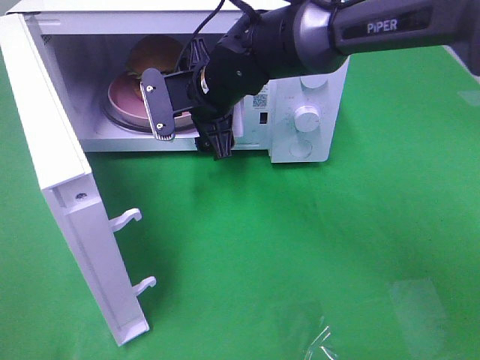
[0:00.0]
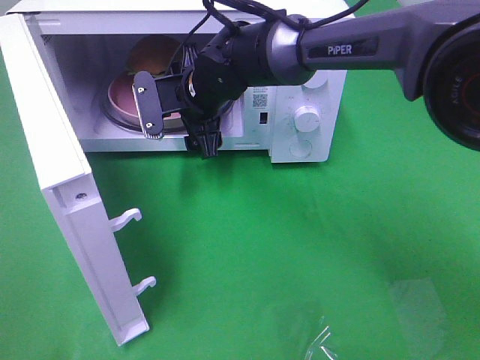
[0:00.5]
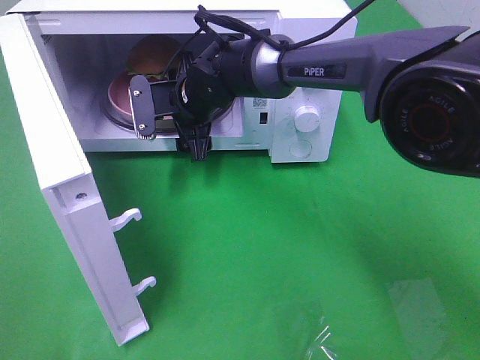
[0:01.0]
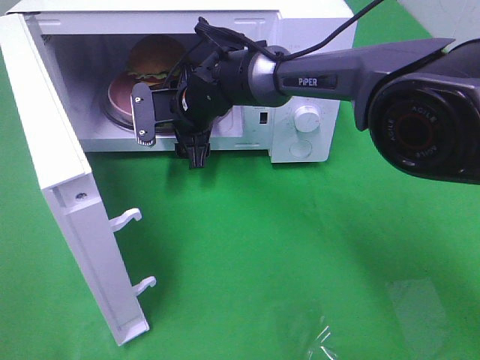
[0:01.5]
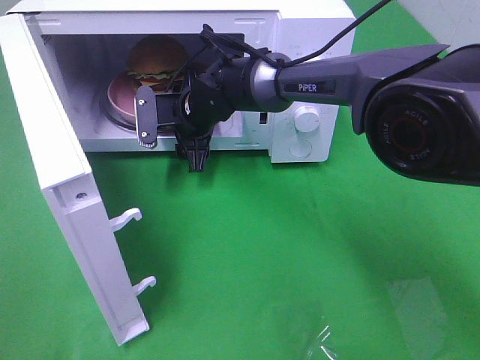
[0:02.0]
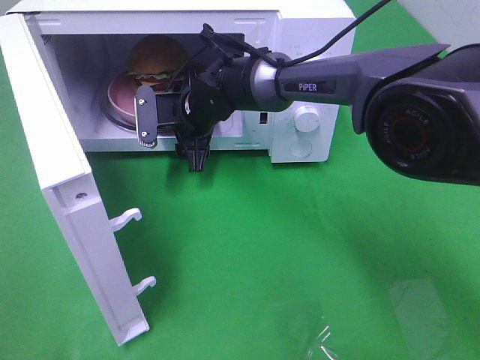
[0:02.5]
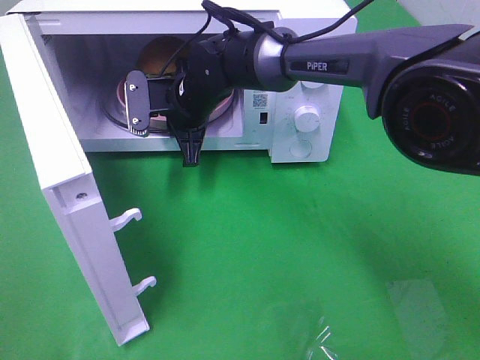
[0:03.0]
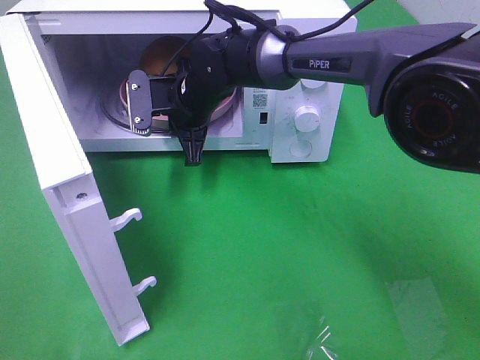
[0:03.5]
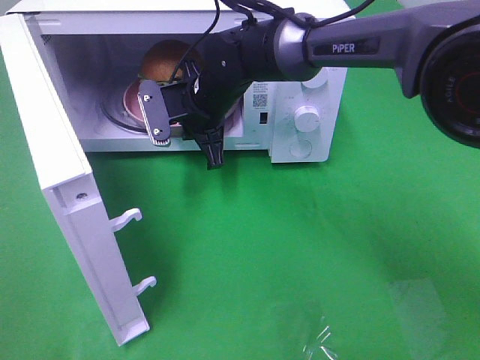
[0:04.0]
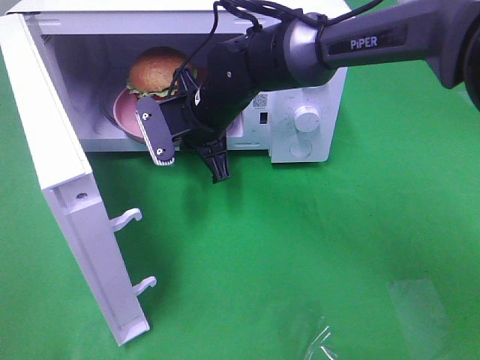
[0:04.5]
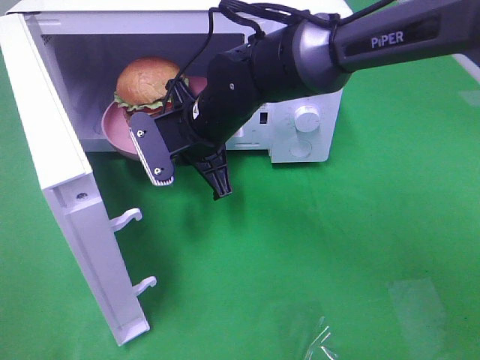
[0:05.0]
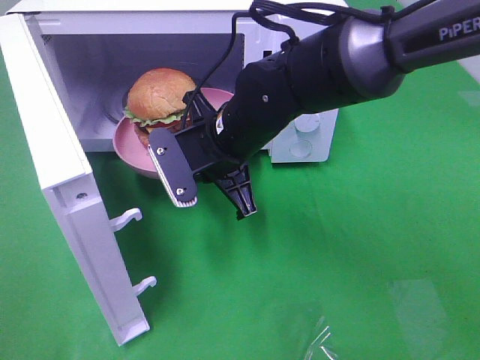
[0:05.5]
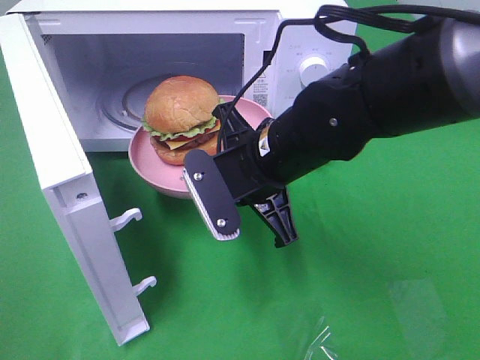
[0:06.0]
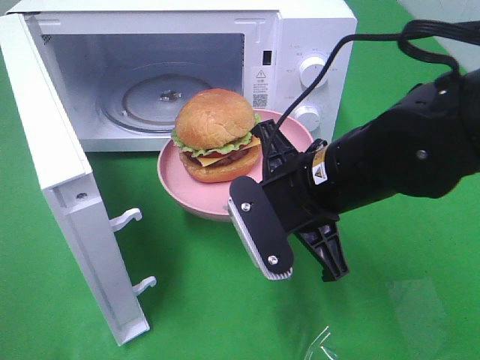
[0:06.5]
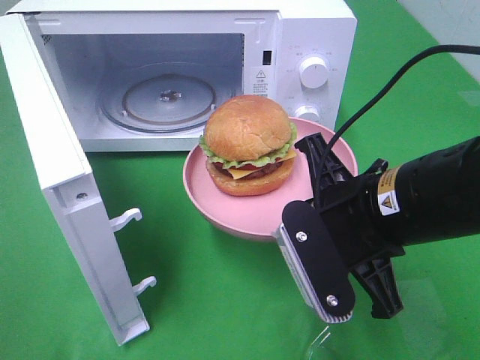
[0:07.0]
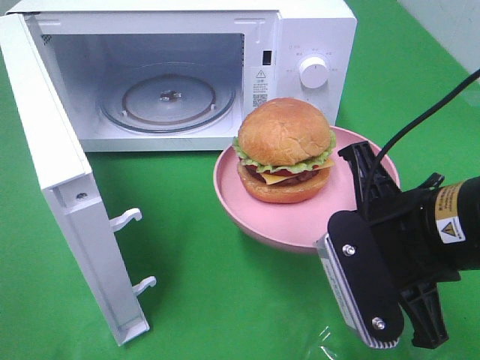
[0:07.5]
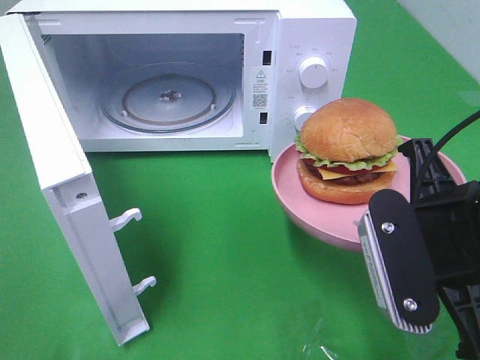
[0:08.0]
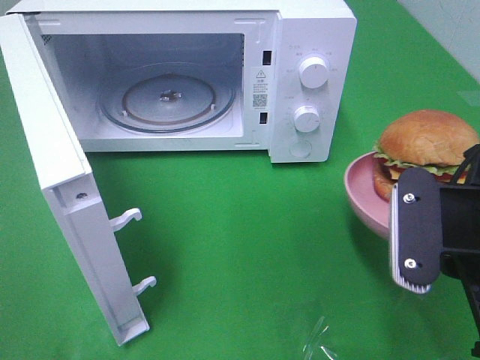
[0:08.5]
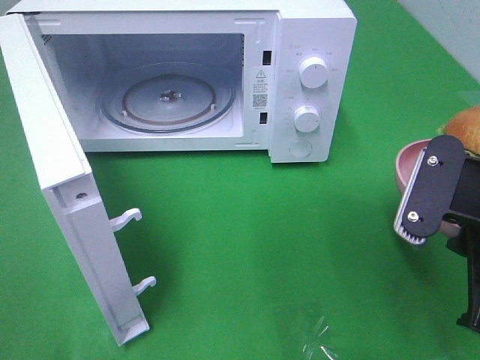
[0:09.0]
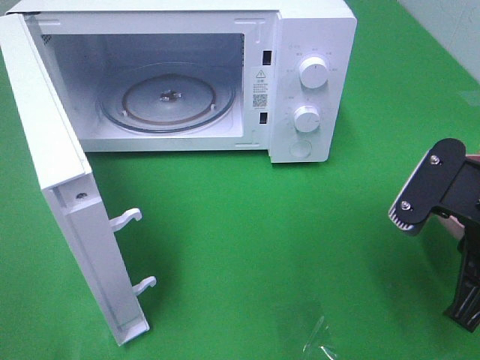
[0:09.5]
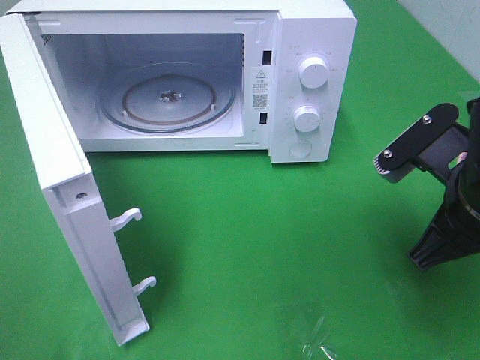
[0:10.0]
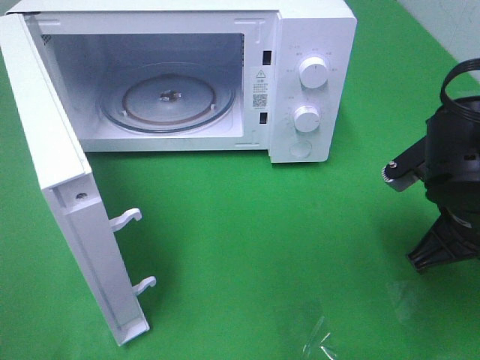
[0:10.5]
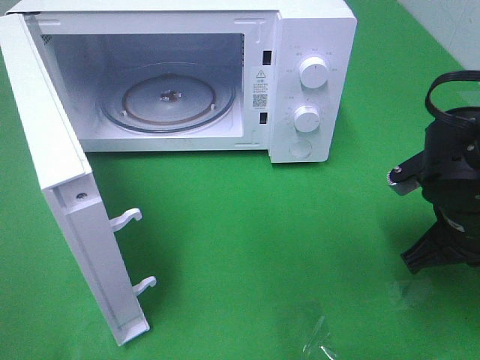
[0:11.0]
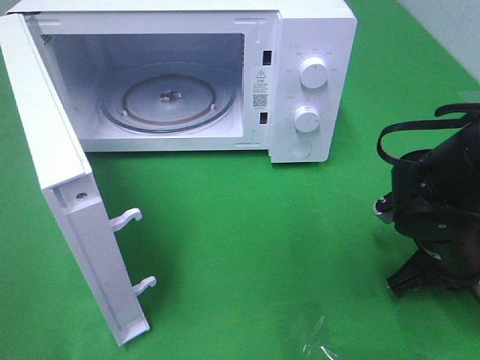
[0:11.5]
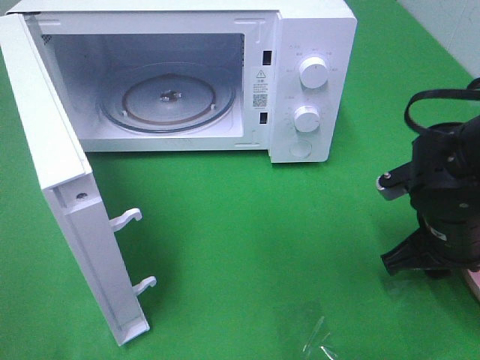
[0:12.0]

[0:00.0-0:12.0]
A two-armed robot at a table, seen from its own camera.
Task of the whole recording: Heat the burger.
Step, 0:00.0 to 0:03.0: Right hand: grab the plate with the hamburger.
0:00.0 to 0:02.0: The right gripper moves downward, some 5 cm.
0:02.0 to 0:04.0: The right gripper closes.
0:04.0 to 0:06.0: The right gripper heads backward and to the right, covering some 15 cm.
0:06.0 to 0:08.0: The right gripper shifts approximately 20 cm to the right and backward.
0:08.0 to 0:10.0: The right gripper ends up about 5 cm from where it was.
0:10.0 to 0:12.0: The right gripper shifts some 5 cm downward, and opens its fingers.

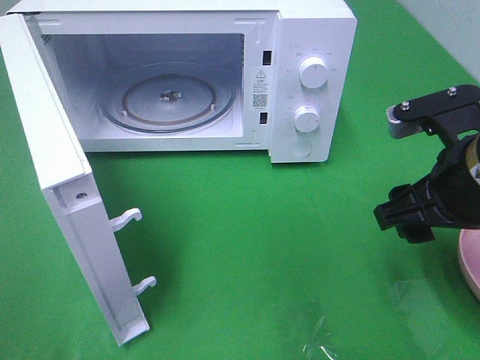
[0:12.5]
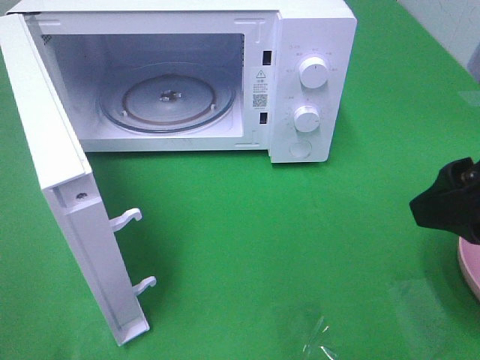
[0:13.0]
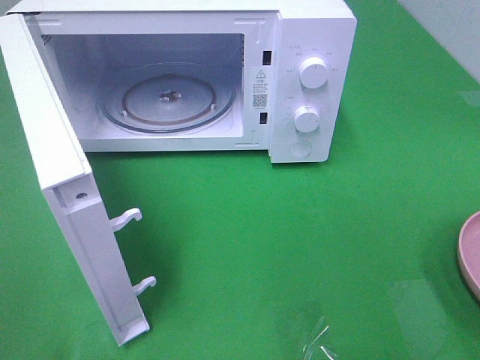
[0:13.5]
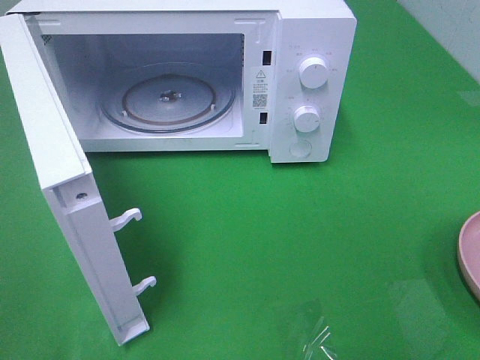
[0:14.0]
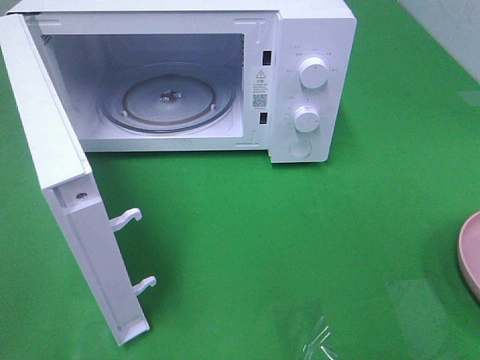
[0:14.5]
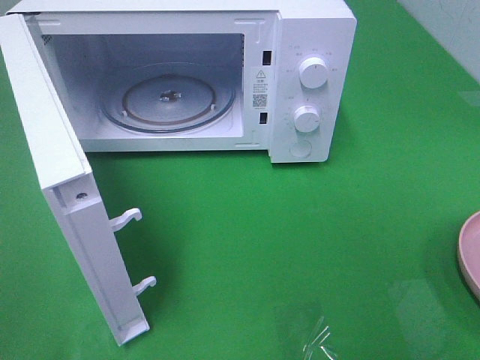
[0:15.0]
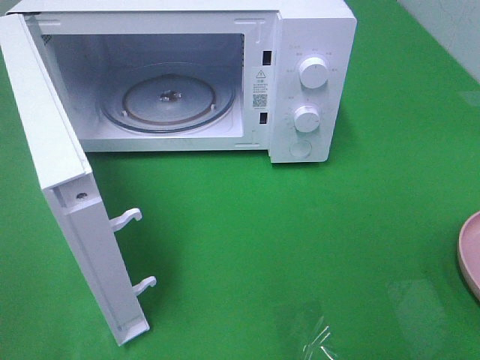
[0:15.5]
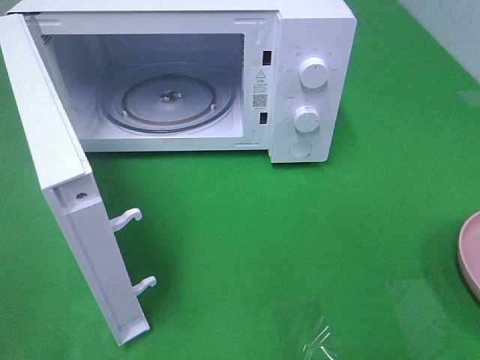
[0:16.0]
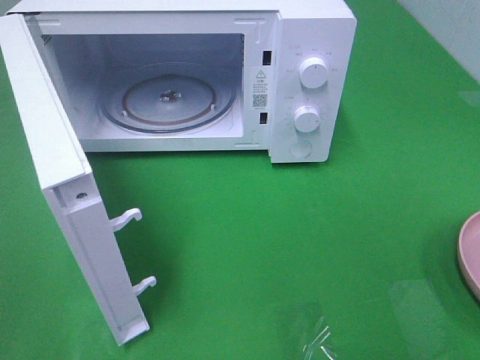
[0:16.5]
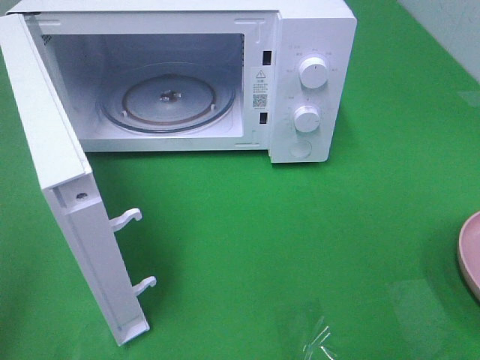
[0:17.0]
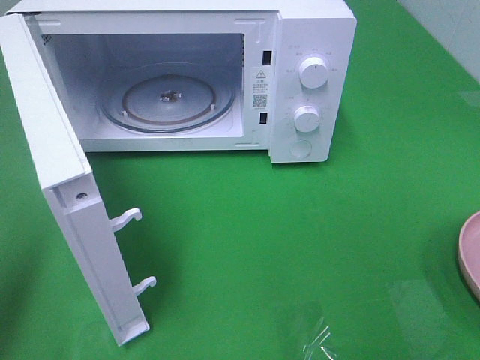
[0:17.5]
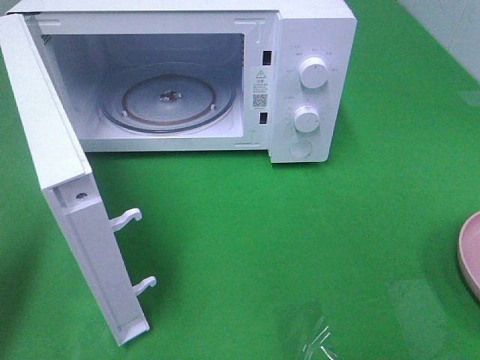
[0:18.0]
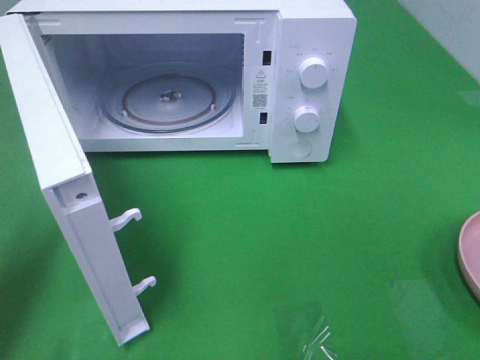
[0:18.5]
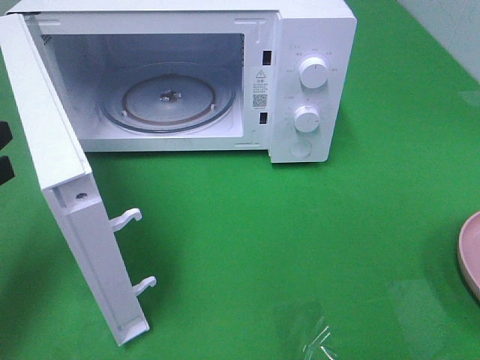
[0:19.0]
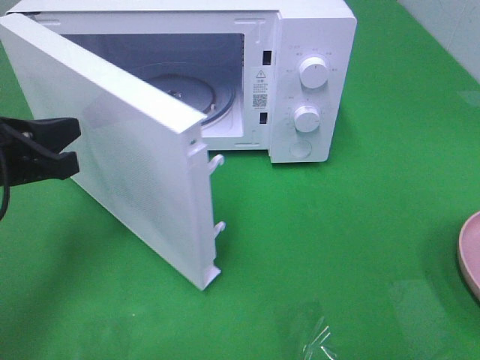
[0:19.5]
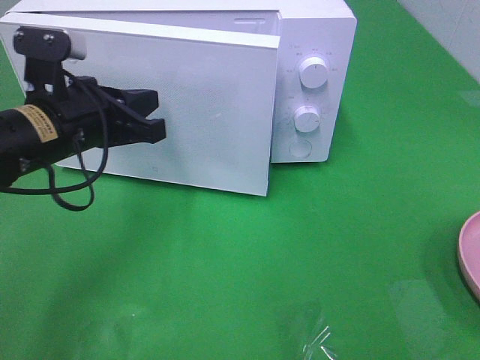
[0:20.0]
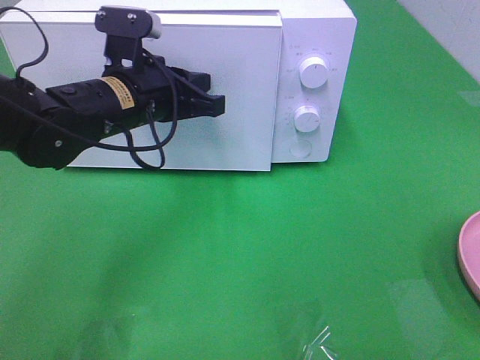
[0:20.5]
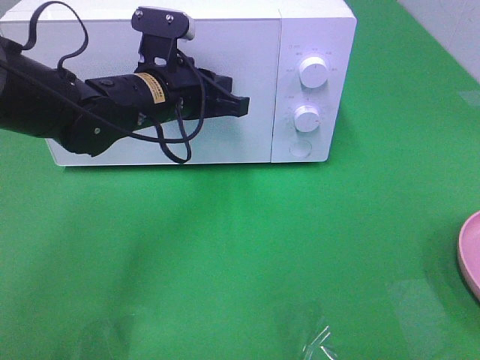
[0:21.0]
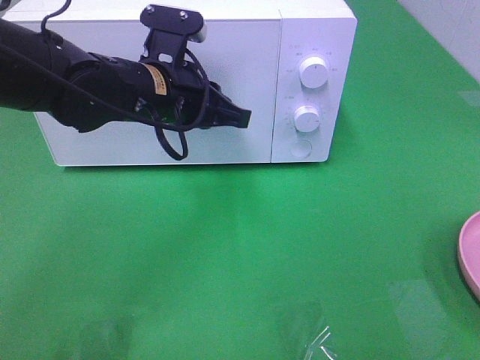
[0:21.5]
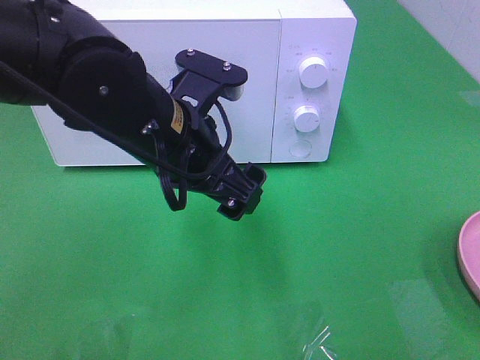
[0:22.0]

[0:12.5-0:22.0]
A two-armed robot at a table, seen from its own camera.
Task of the whole recording: Heat the burger.
Step, 0:12.5 to 0:21.5: Left hand: close the microwave door.
0:12.5 to 0:14.5: The right gripper heads backward and to the right, covering roughly 25 cm.
0:16.5 to 0:18.0: The left gripper goes approximately 15 cm forward, and closes.
0:18.0 to 0:20.0: The left gripper travels to the right and forward by roughly 20 cm.
0:20.0 to 0:22.0: The left gripper goes roughly 10 cm to the right, and opens its fingers.

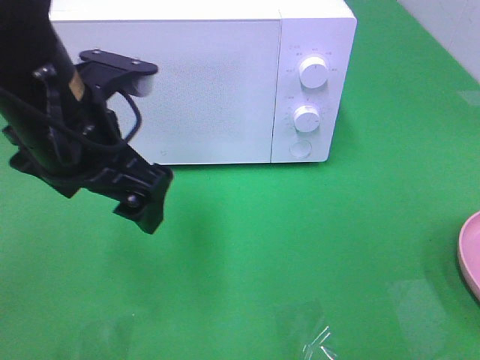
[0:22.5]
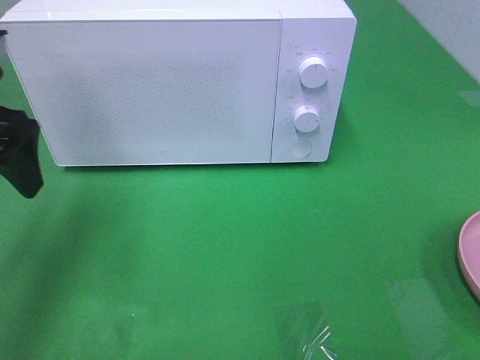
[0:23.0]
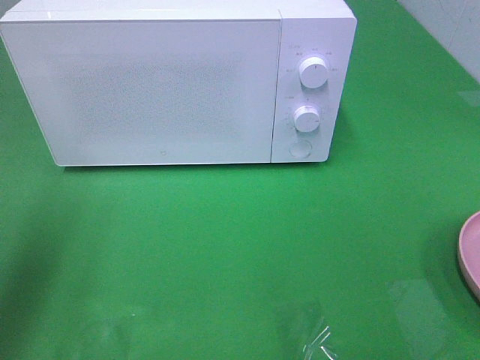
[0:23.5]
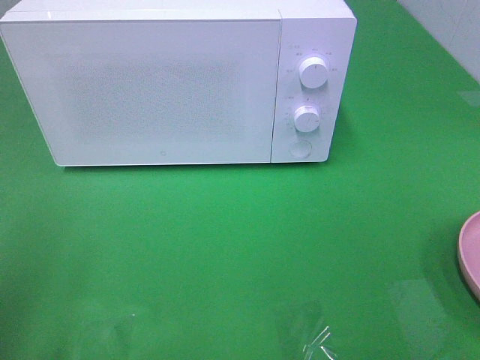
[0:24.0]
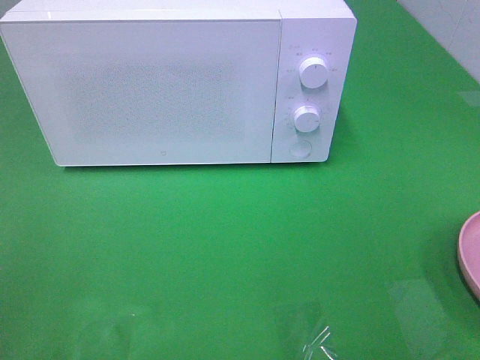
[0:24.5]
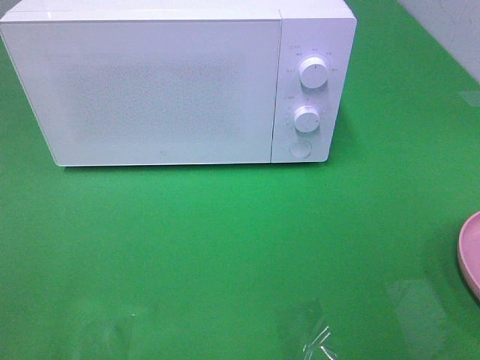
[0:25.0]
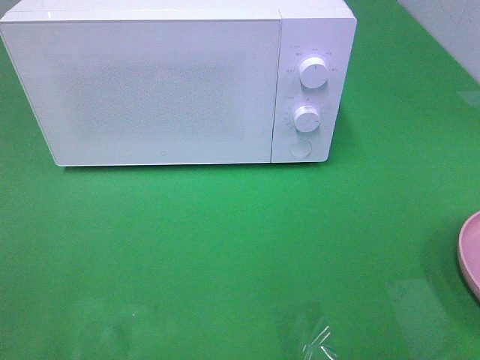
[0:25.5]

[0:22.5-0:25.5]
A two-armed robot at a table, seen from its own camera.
Task of the whole recording: Heat the burger.
0:22.5 to 0:24.0: The left gripper moves to the left and backward, roughly 20 cm.

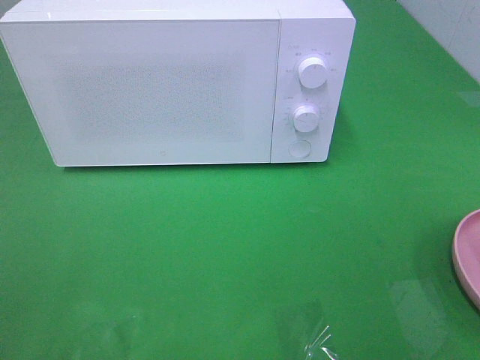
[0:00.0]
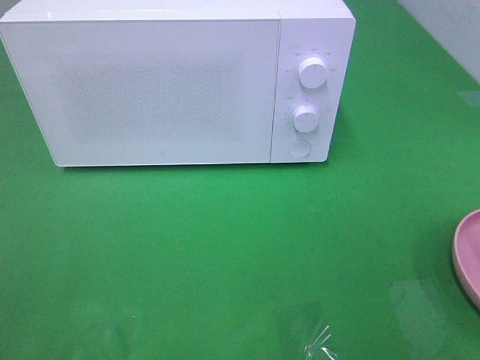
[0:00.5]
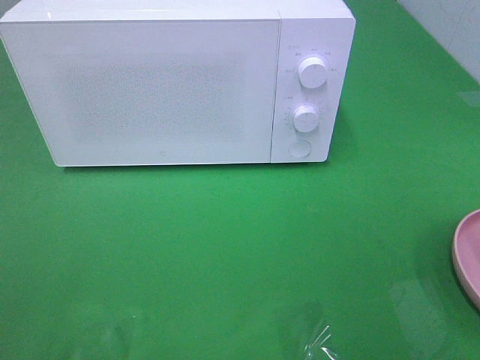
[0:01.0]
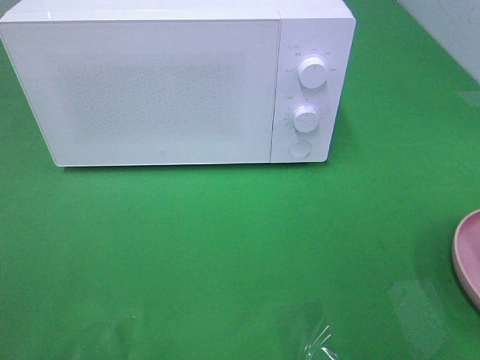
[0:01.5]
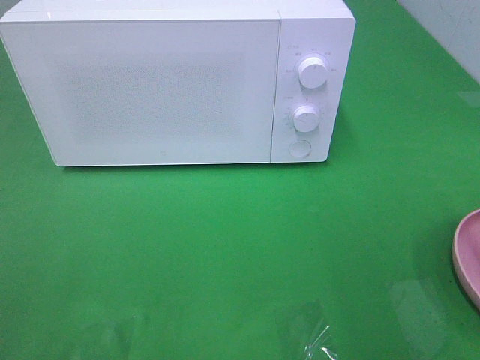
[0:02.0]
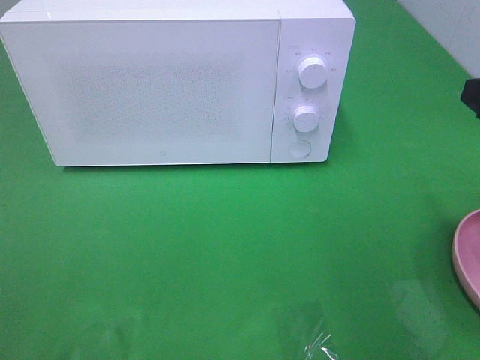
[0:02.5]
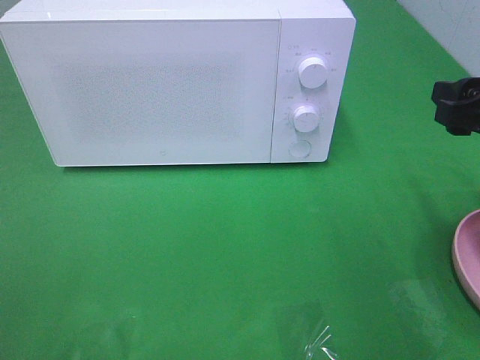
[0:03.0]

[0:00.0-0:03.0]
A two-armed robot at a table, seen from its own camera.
Task of the whole recording: Heat the burger.
0:01.5 to 0:03.0: The right gripper shifts some 15 cm forward and downward.
